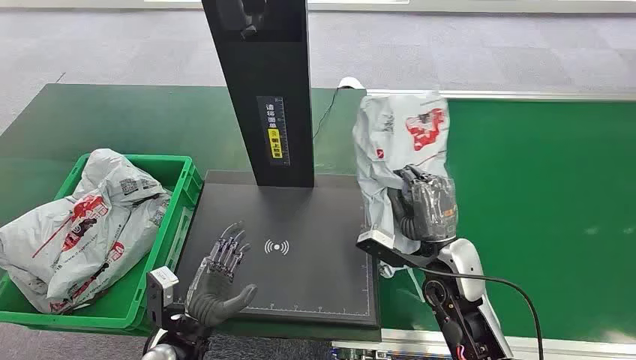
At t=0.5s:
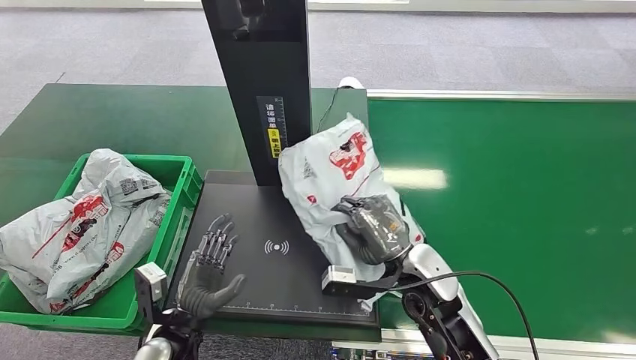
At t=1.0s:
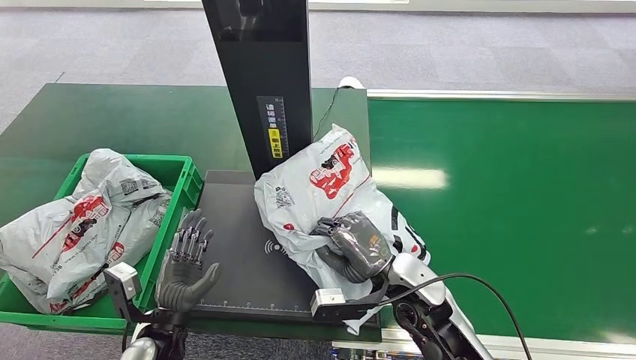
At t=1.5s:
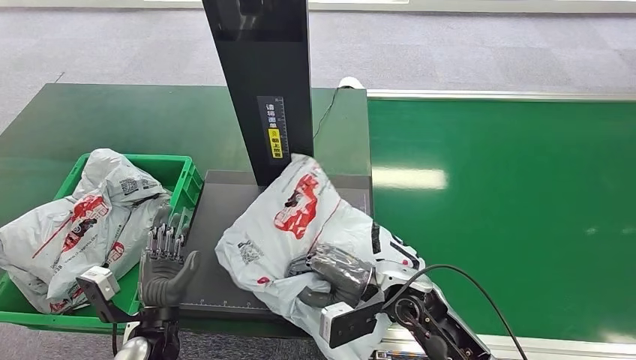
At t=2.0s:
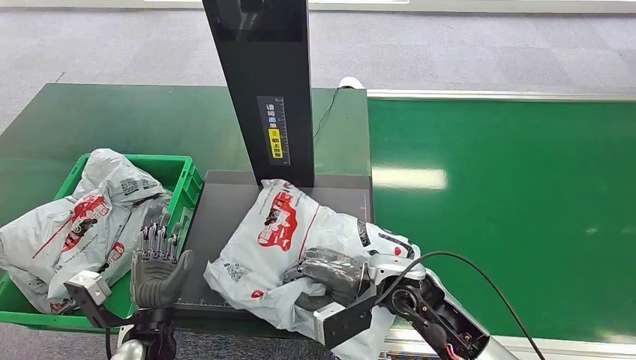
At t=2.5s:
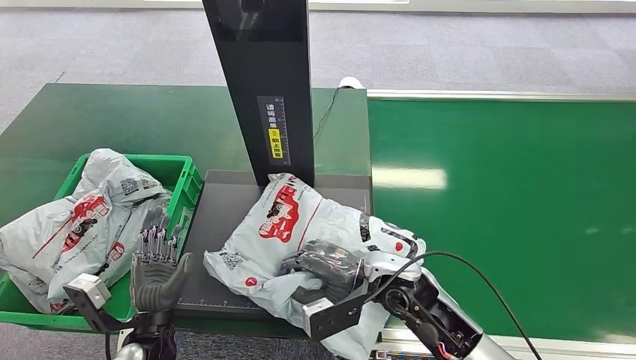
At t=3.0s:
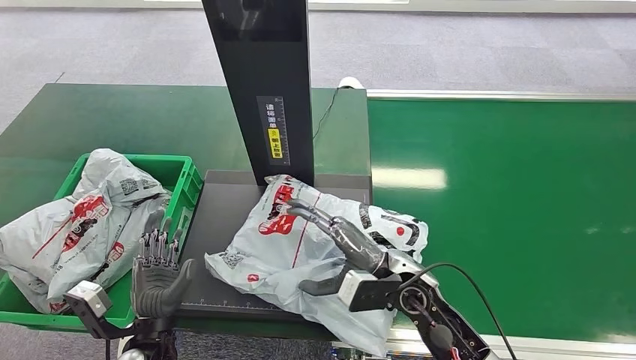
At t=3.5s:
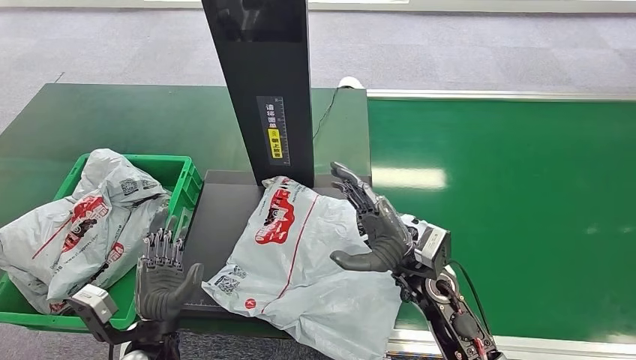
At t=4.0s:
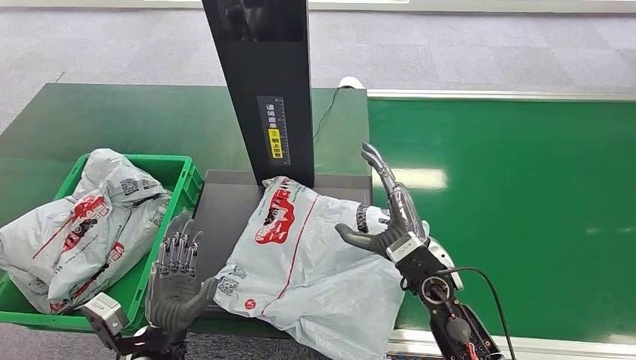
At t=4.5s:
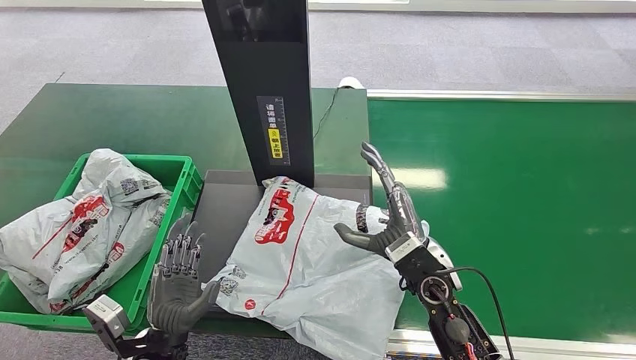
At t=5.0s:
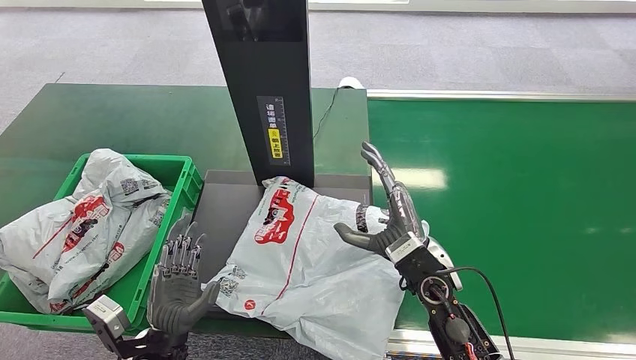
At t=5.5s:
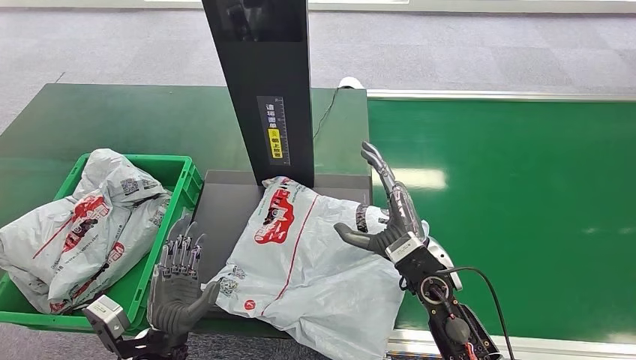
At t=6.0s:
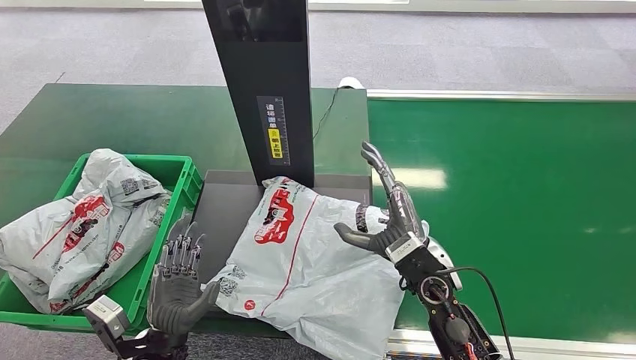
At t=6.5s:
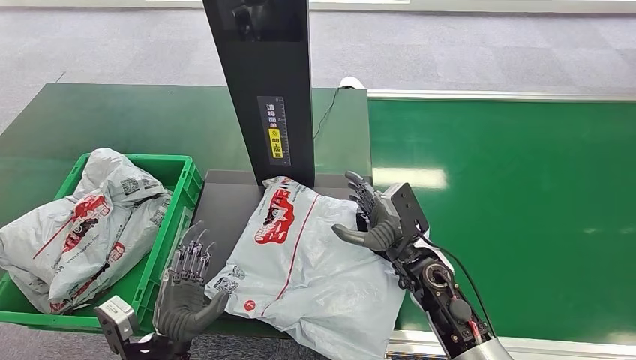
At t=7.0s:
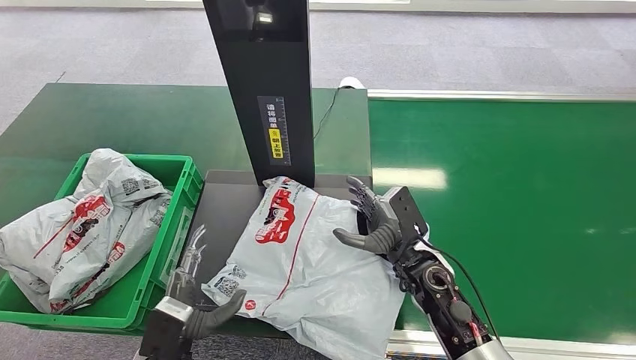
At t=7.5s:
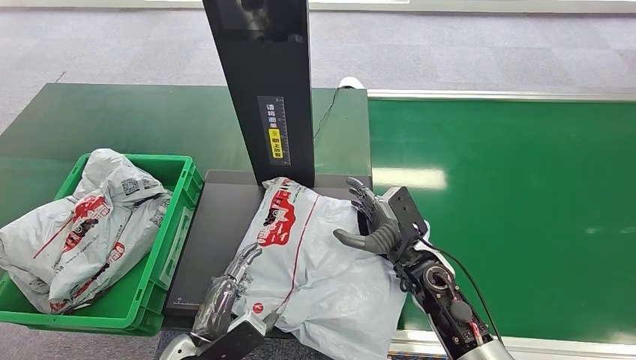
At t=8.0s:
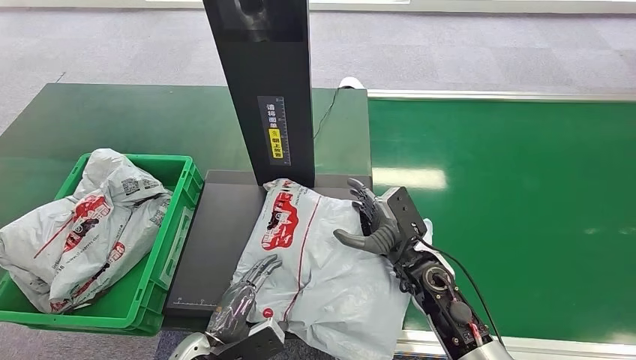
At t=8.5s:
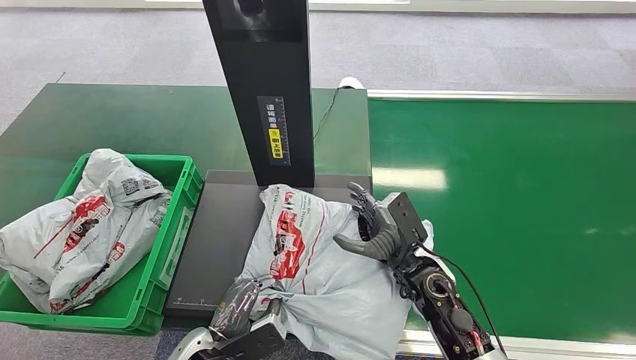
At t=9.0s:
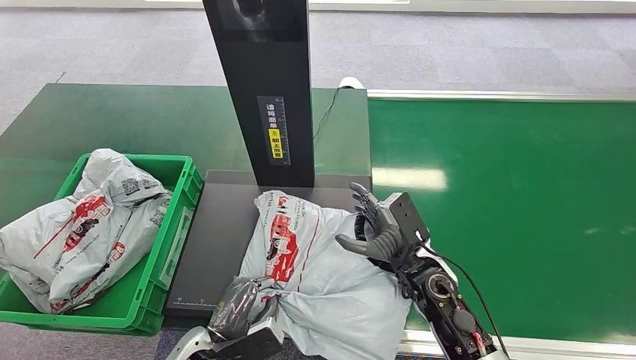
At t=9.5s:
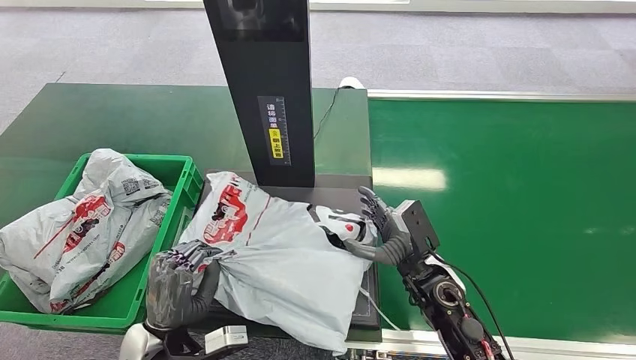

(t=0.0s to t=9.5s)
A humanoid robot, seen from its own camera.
t=4.0s - t=5.5s: Both hands stay about where they are.
t=7.5s - t=9.5s: The left hand shifts by some 5 cm.

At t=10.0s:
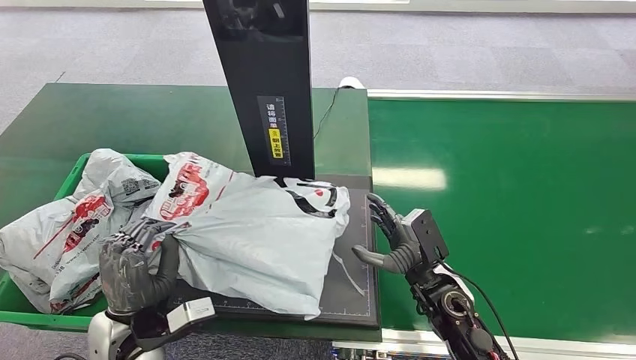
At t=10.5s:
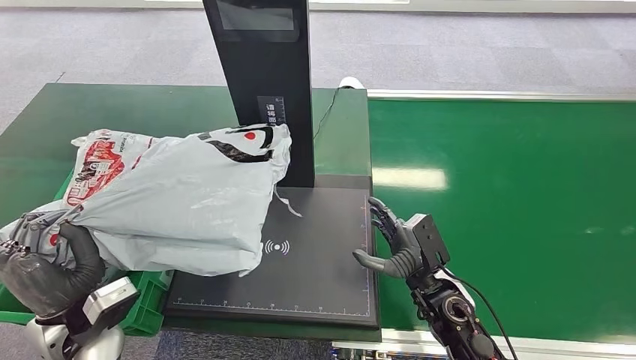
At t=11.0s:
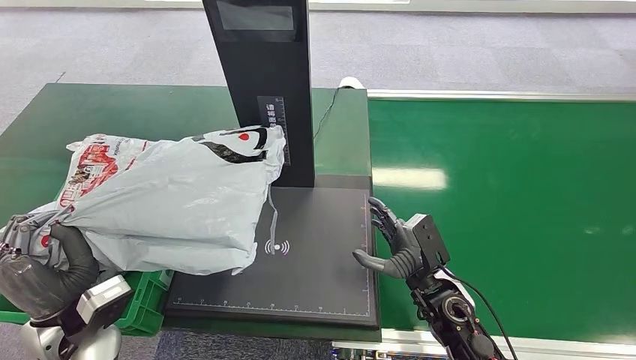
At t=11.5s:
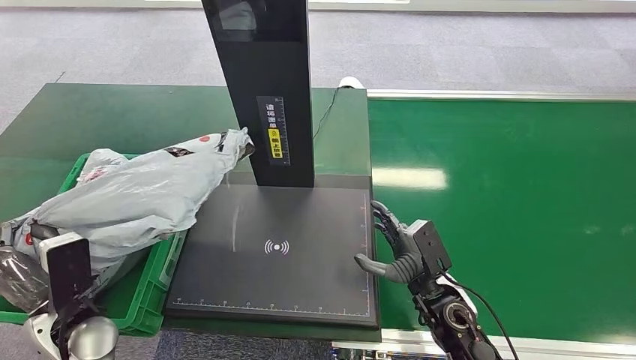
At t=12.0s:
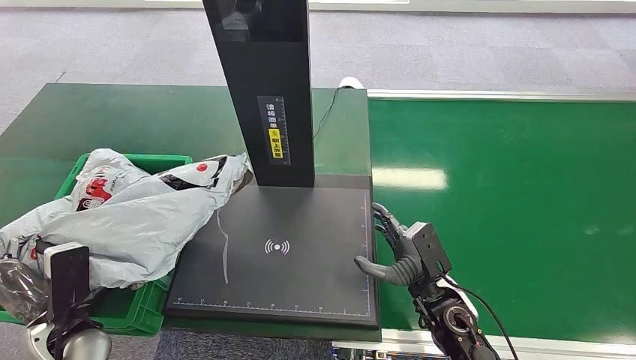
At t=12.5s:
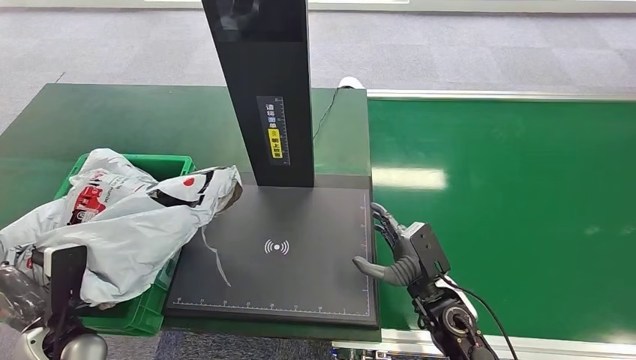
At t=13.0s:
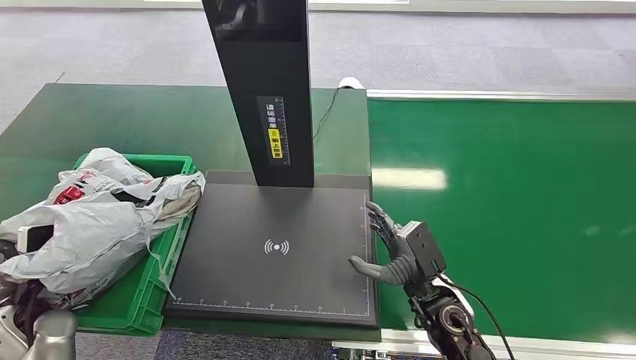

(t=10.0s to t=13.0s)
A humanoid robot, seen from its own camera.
t=11.5s - t=13.0s: The left hand moves to the left, some 10 cm.
